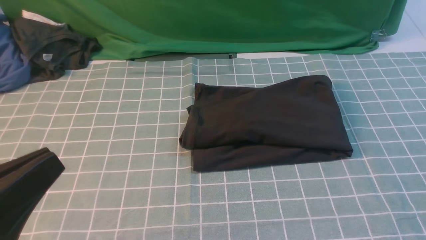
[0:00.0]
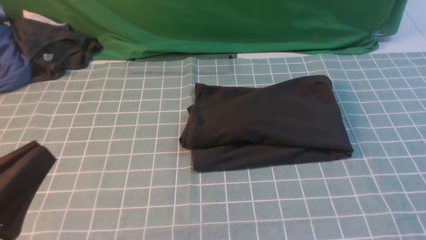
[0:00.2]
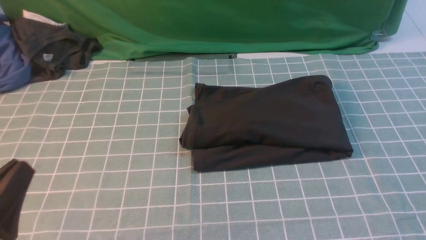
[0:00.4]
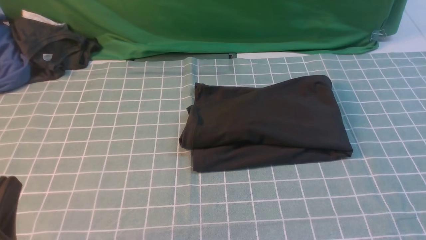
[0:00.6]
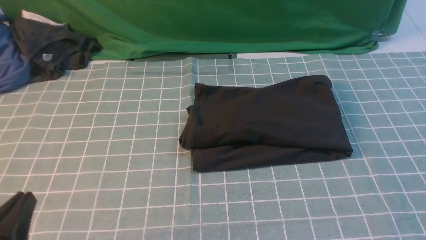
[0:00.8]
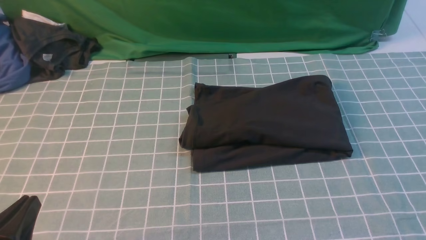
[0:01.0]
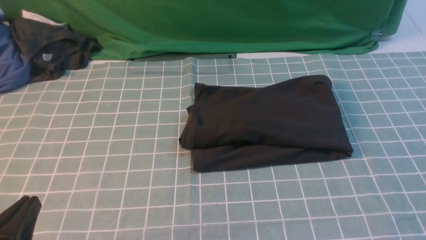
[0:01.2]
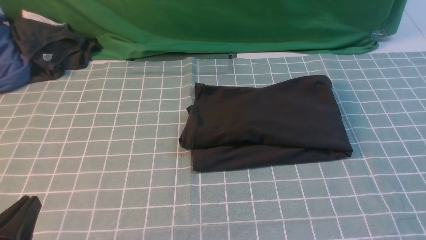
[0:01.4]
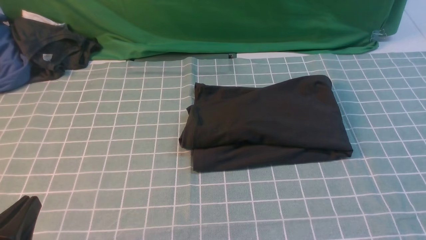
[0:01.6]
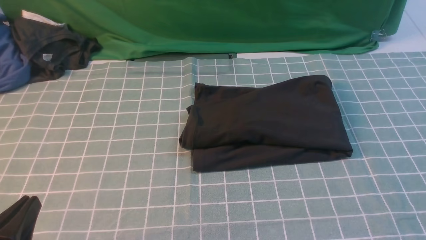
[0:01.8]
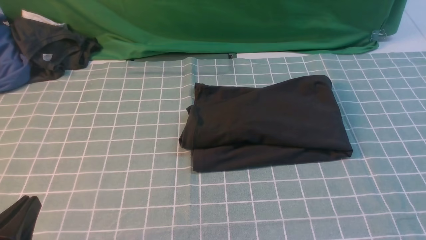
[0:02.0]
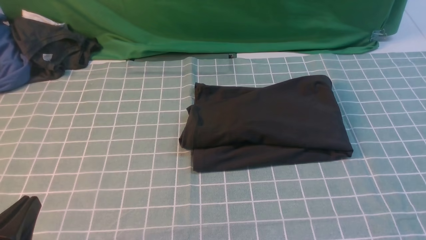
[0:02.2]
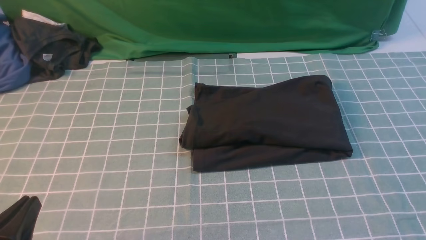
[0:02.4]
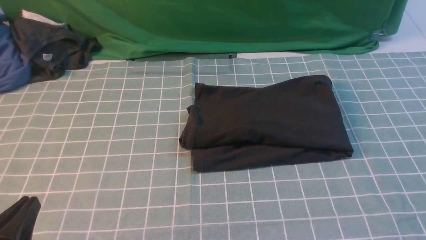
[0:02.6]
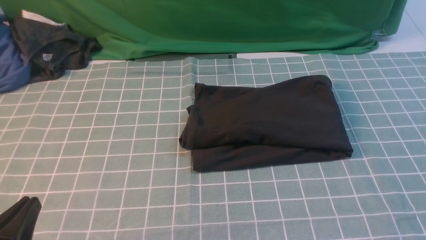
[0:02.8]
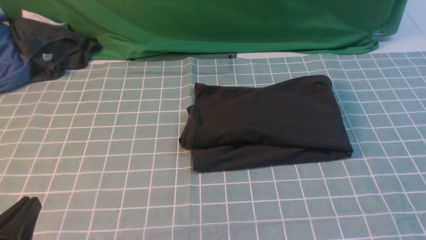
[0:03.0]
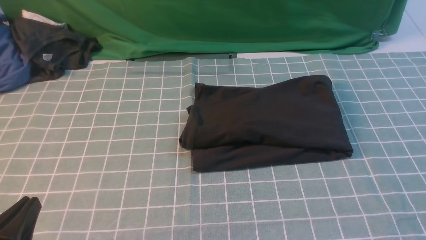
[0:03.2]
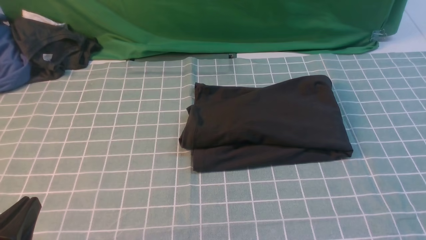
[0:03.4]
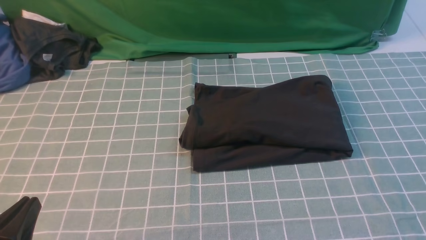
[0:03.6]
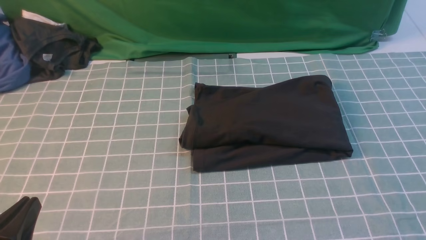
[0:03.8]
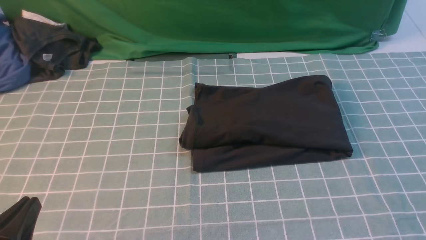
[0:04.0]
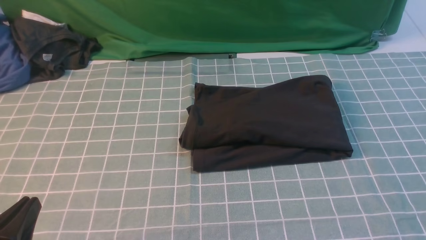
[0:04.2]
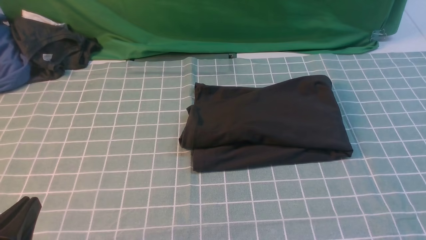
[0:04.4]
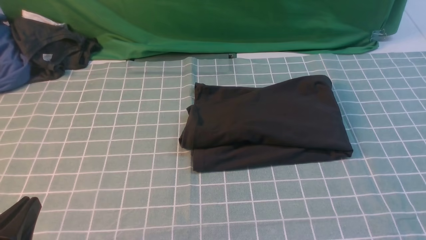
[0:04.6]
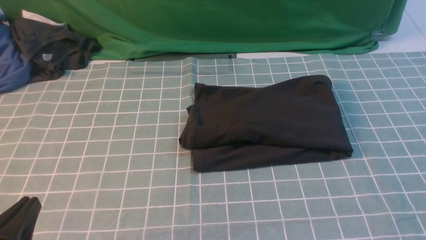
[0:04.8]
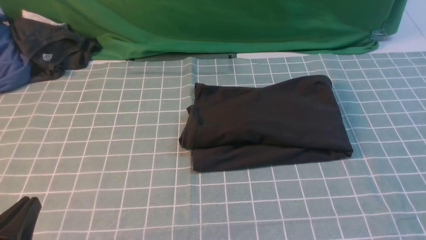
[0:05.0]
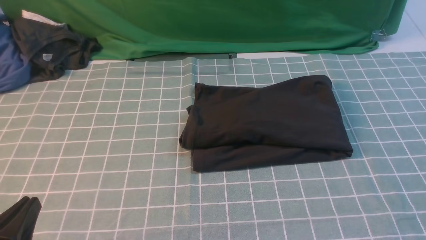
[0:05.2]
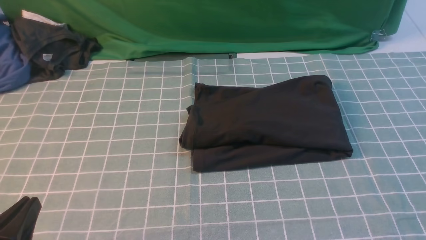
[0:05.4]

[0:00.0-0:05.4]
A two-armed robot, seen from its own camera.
0:00.0 to 0:01.4: The left gripper heads downward, covering some 10 cm.
0:04.0 to 0:05.4: Both grippers stay about where they are.

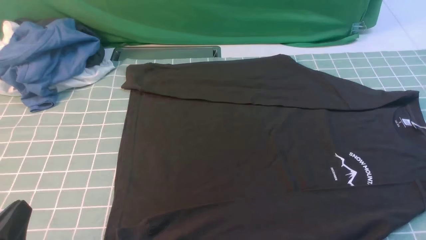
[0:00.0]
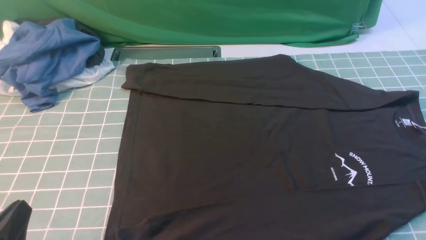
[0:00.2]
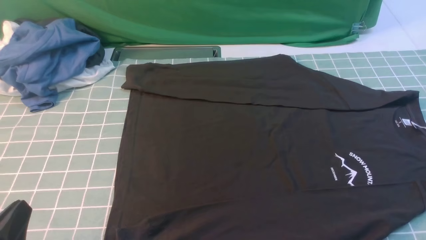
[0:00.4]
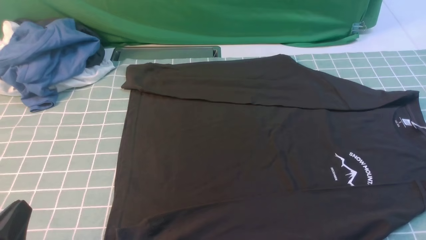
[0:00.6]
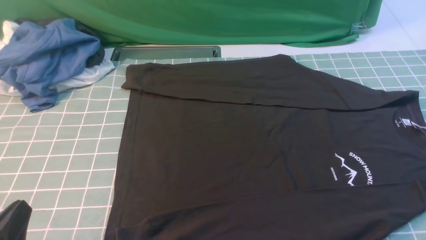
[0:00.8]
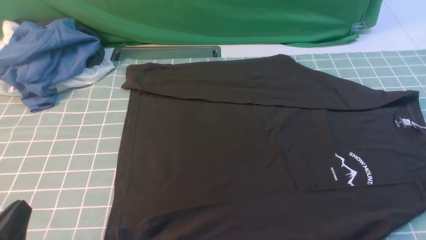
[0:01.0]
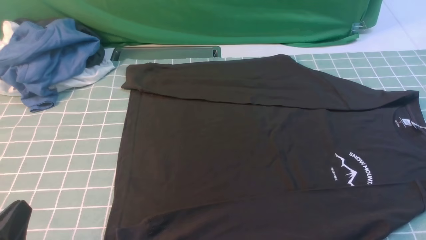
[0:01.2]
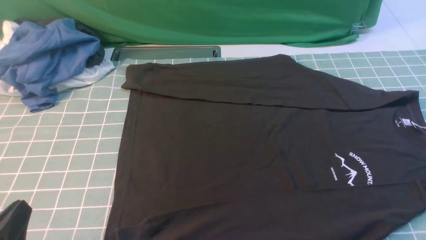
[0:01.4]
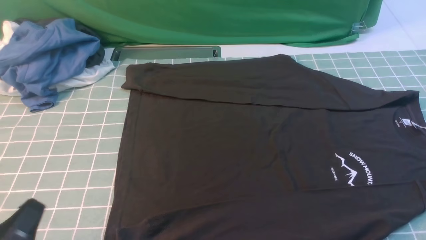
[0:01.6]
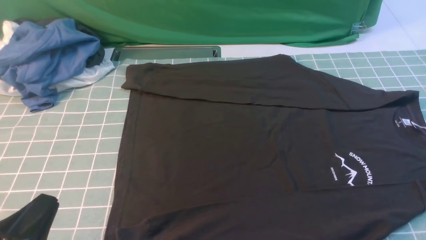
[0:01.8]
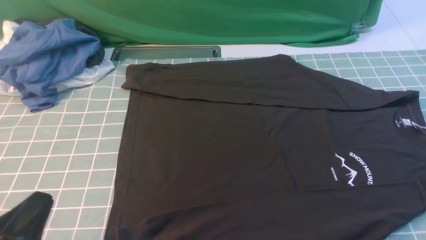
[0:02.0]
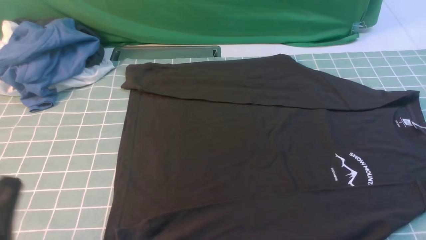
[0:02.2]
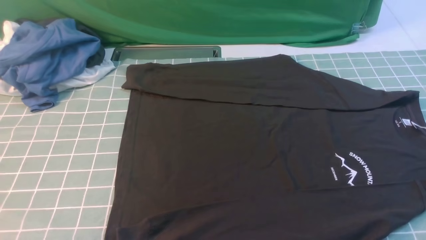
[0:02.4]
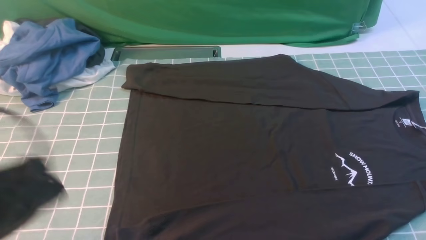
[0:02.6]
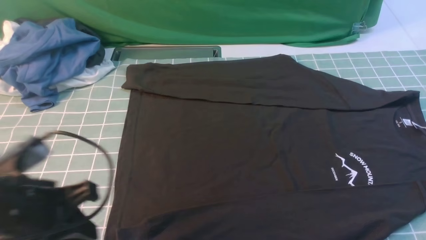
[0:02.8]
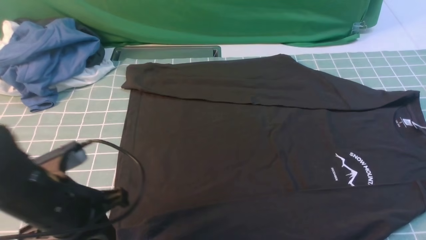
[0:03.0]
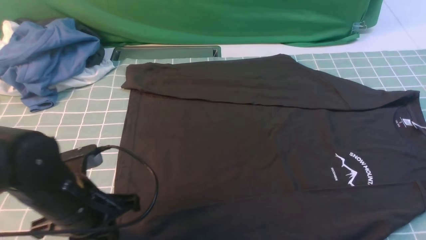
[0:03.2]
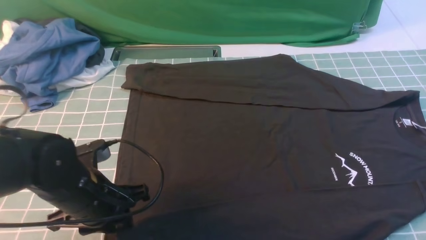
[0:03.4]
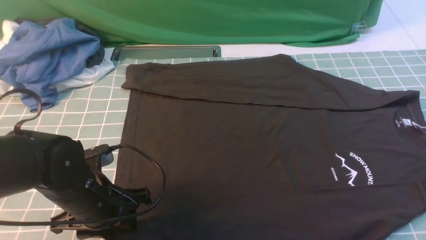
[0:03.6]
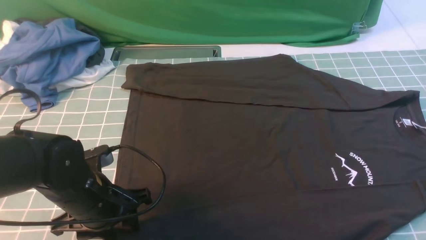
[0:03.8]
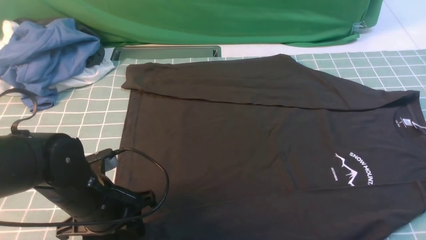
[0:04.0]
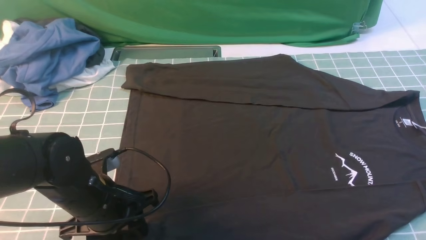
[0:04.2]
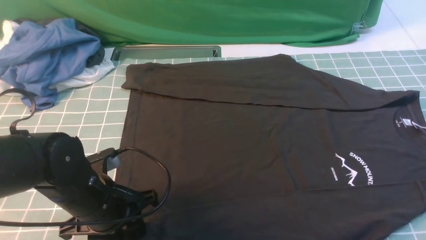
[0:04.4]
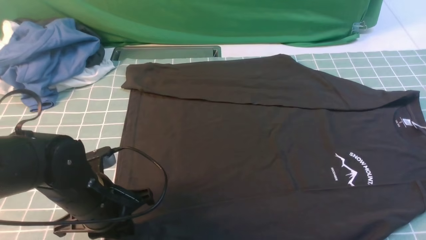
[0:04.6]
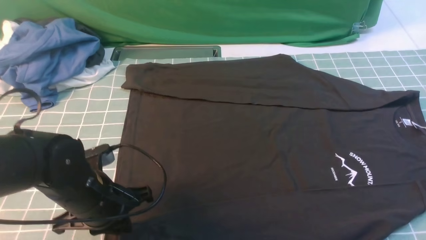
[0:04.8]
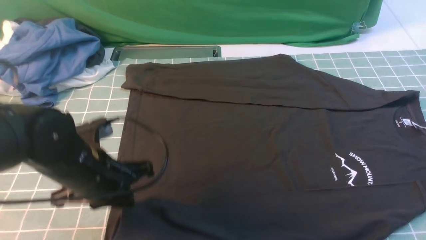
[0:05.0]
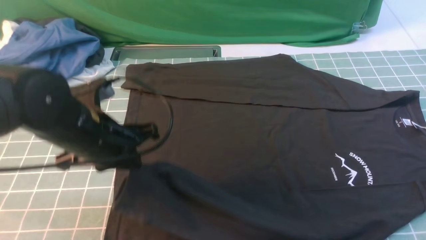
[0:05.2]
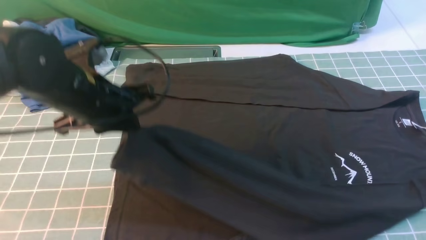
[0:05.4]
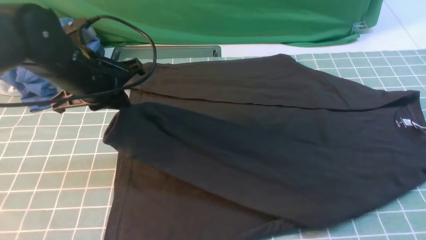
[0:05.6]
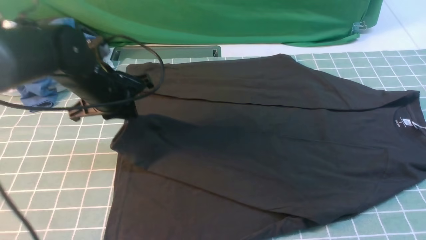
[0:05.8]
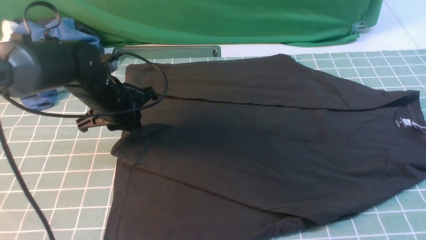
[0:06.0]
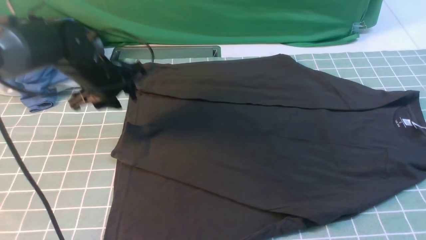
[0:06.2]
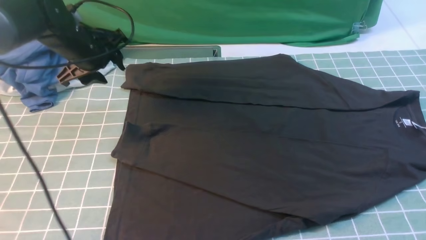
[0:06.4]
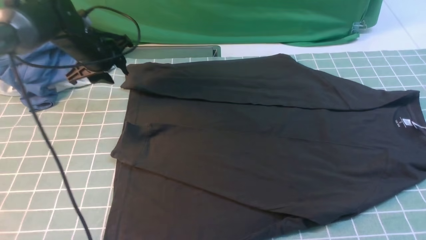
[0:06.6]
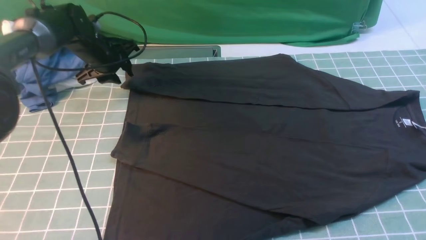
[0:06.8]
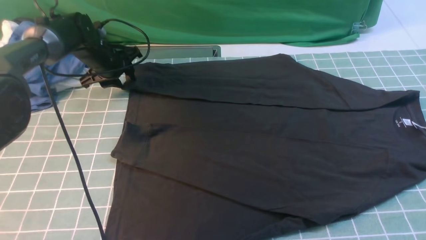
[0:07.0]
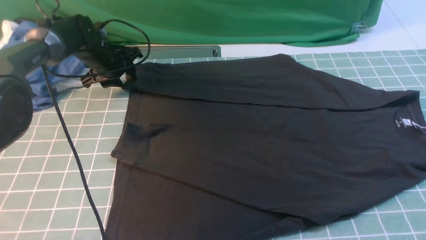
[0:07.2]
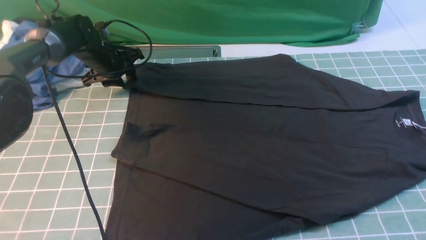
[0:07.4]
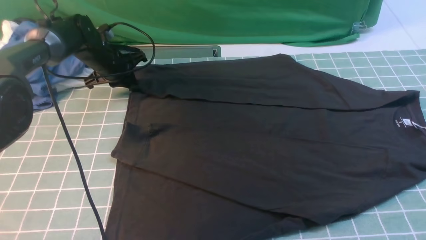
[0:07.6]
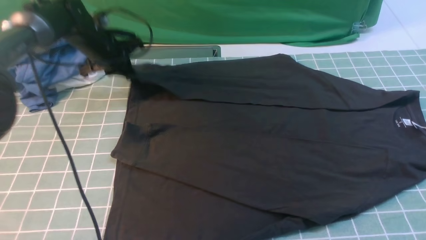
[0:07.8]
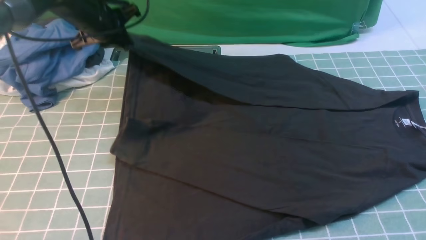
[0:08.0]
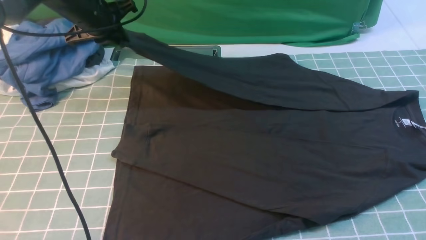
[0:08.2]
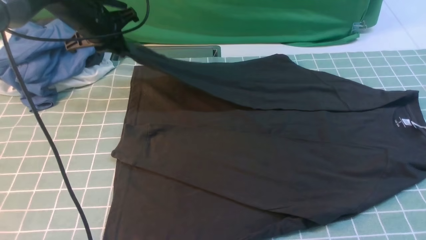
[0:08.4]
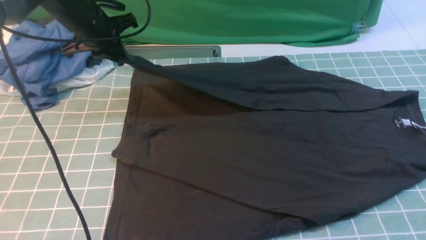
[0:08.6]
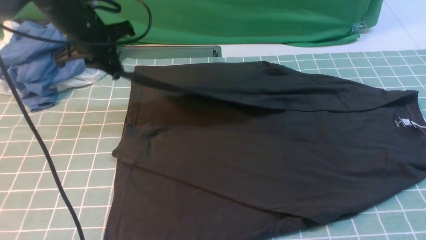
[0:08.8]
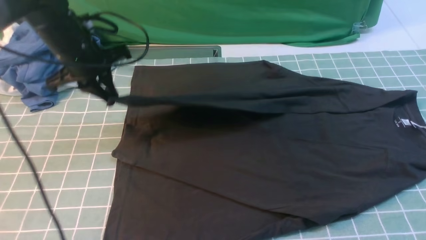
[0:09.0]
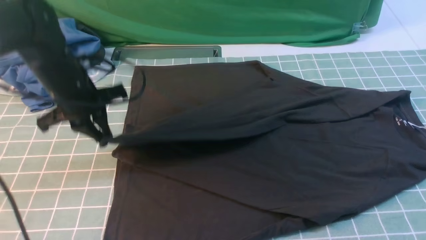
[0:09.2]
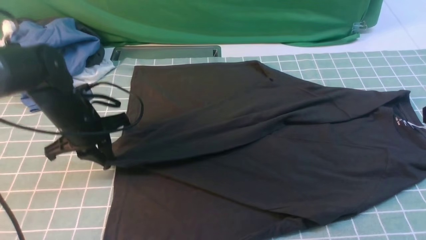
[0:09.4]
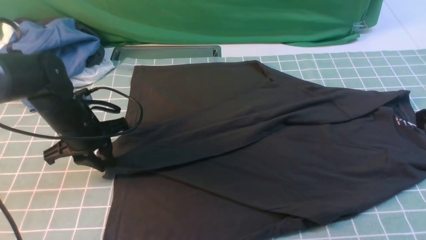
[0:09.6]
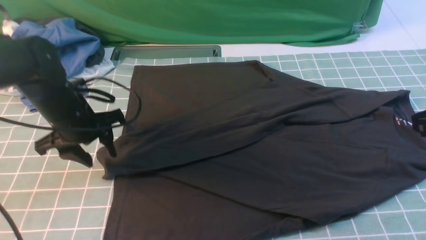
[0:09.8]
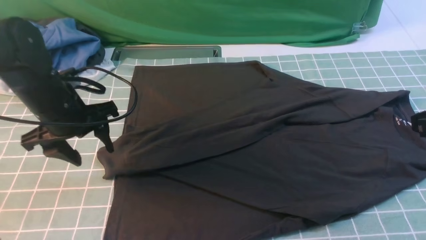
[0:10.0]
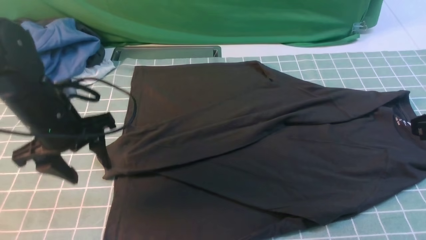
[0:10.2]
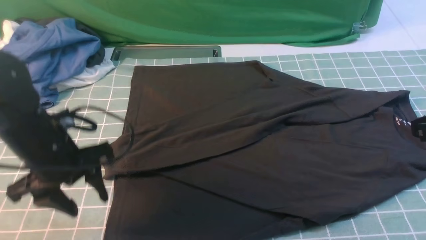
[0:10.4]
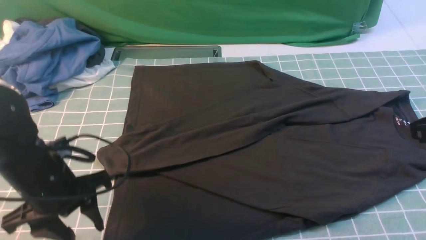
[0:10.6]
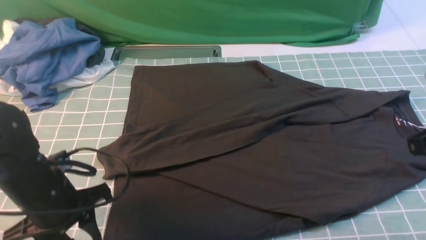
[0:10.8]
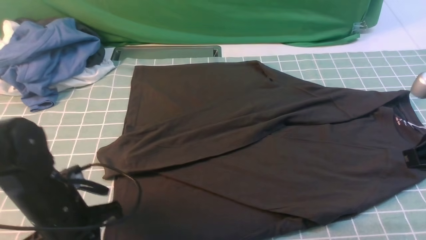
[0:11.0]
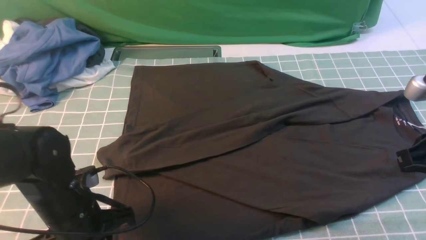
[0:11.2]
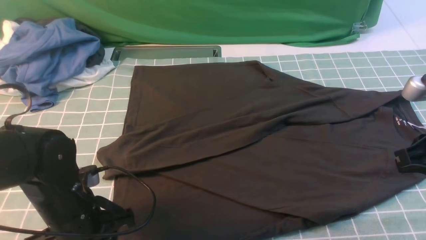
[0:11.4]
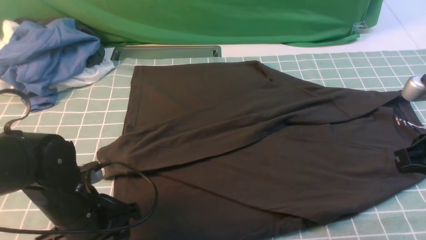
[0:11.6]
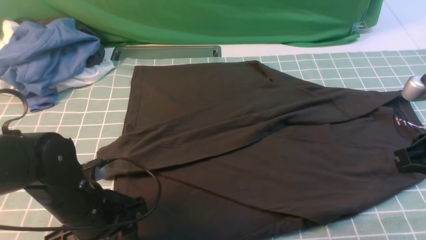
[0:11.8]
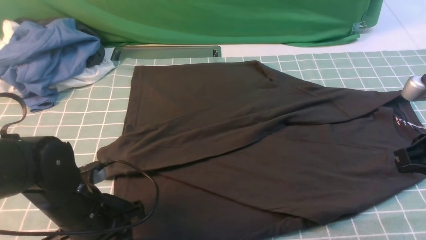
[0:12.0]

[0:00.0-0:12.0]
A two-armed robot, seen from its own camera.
Step, 0:00.0 to 0:04.6: use the left arm to clamp the cuff closest to it.
Step, 0:04.8 to 0:06.0: use the left arm to drag and place the cuff at the centered position on the left edge of the fabric.
Step, 0:06.2 to 0:07.6: use the left arm to clamp the cuff farthest from it.
Step, 0:07.8 to 0:09.6: use the left arm to drag and drop the cuff onto the cuff closest to the left arm.
0:01.6 to 0:03.0: The left gripper shifts about 15 cm forward.
0:03.0 to 0:04.4: The left gripper moves downward, roughly 5 cm, and opens its fingers.
0:04.4 to 0:06.0: The left gripper travels forward by some 15 cm.
0:06.0 to 0:07.6: The left gripper shifts approximately 15 cm forward, and opens and closes again.
0:07.6 to 0:09.0: The left gripper moves backward and upward, roughly 15 cm.
0:09.0 to 0:10.4: The left gripper goes roughly 15 cm backward, and opens up.
0:10.4 to 0:12.0: The left gripper shifts some 10 cm backward and downward, and closes and opens again.
